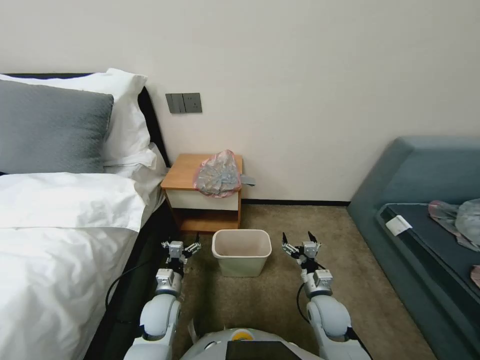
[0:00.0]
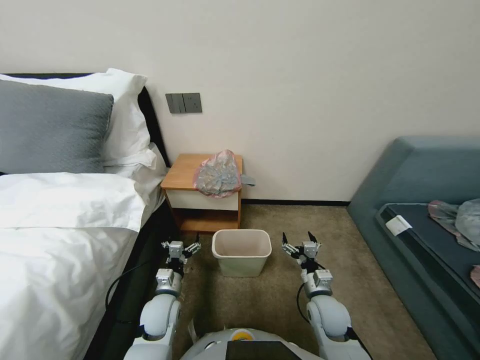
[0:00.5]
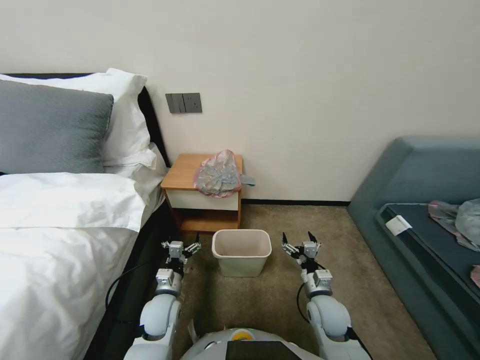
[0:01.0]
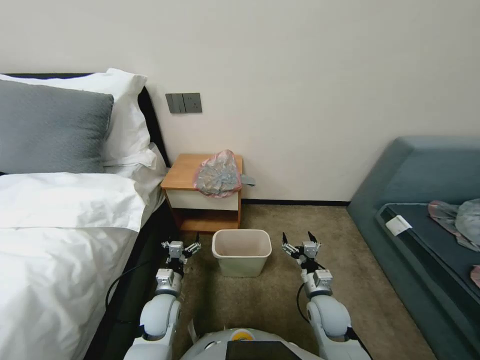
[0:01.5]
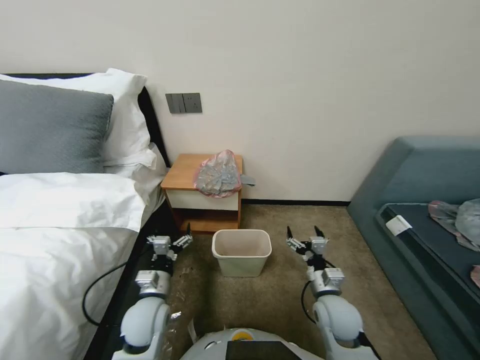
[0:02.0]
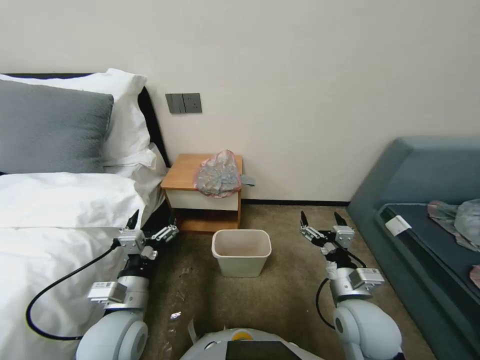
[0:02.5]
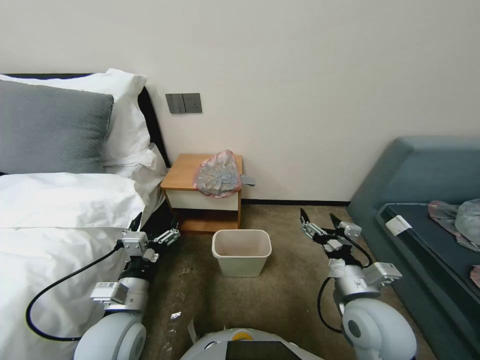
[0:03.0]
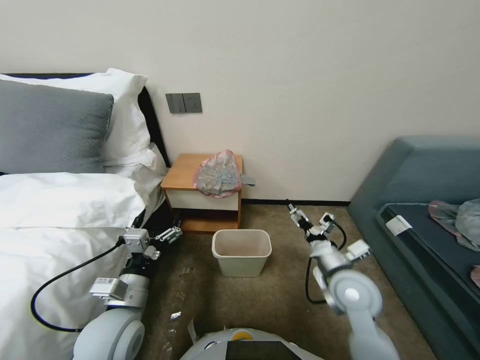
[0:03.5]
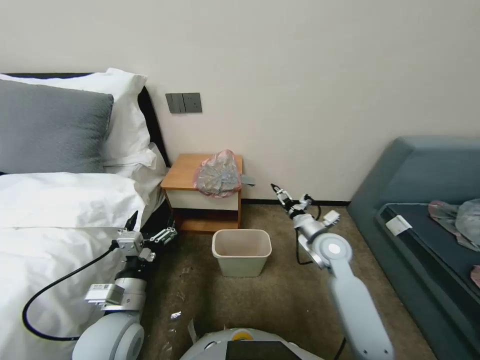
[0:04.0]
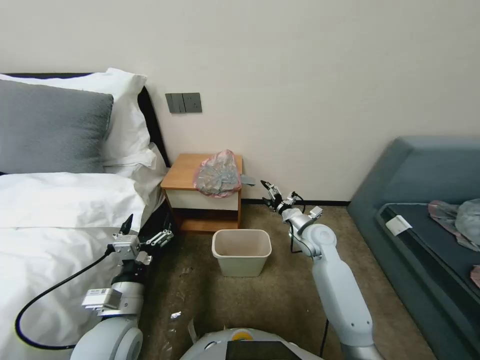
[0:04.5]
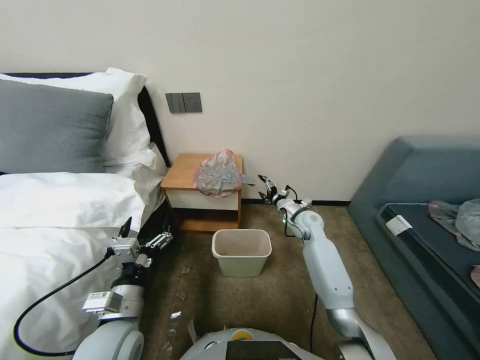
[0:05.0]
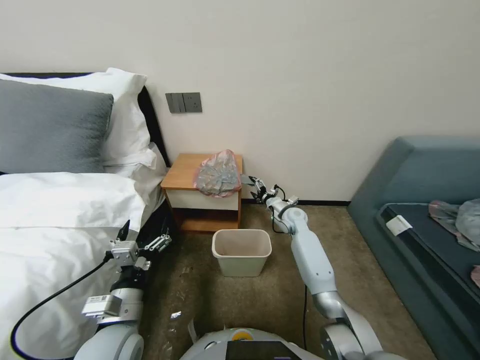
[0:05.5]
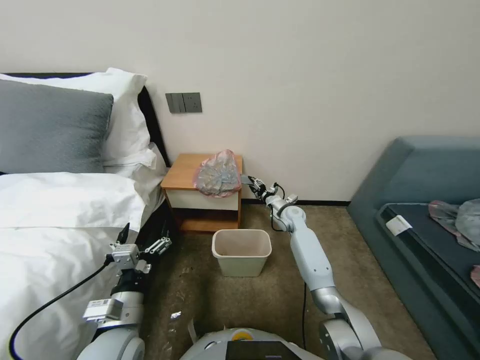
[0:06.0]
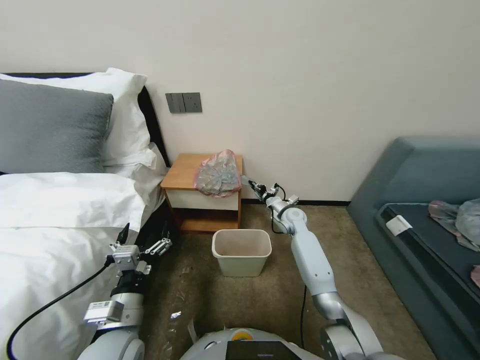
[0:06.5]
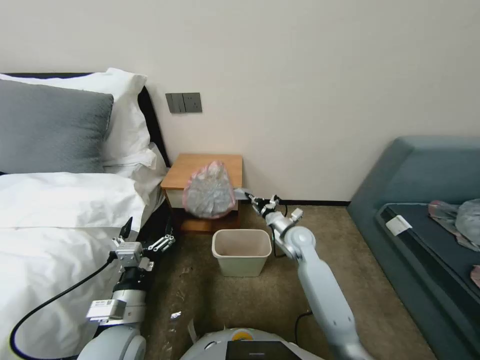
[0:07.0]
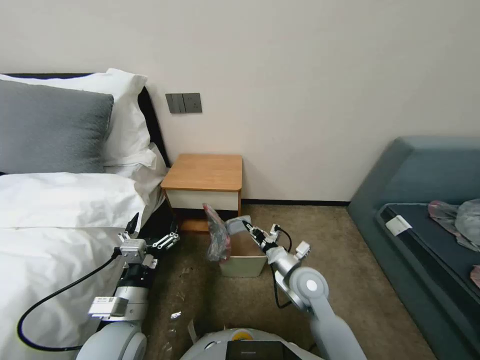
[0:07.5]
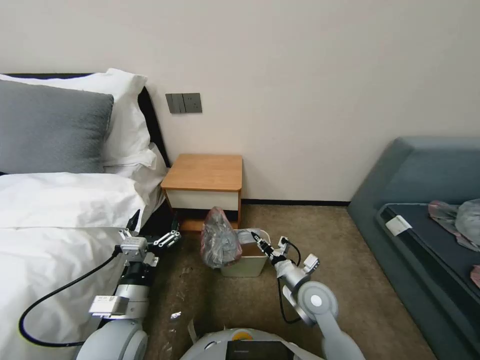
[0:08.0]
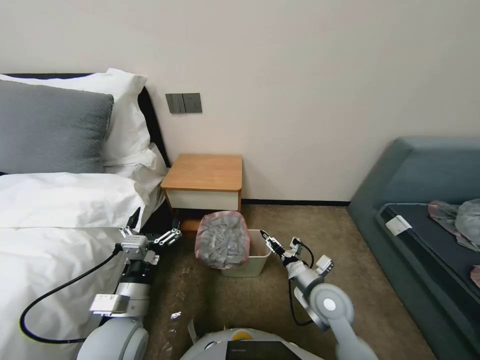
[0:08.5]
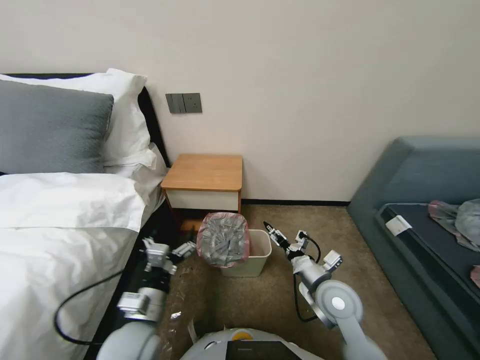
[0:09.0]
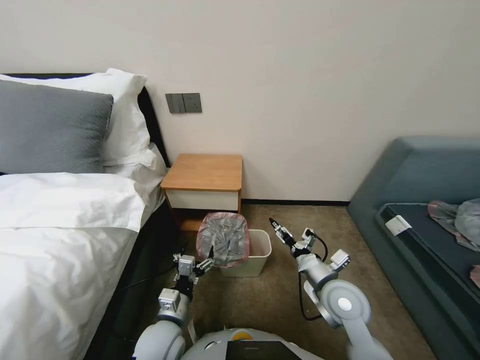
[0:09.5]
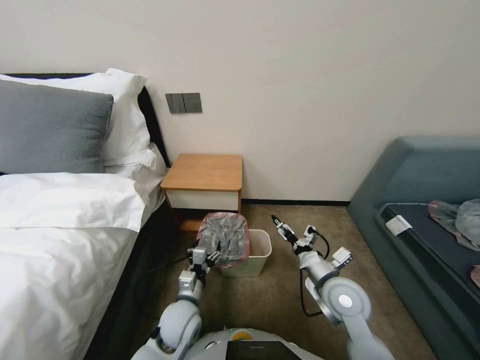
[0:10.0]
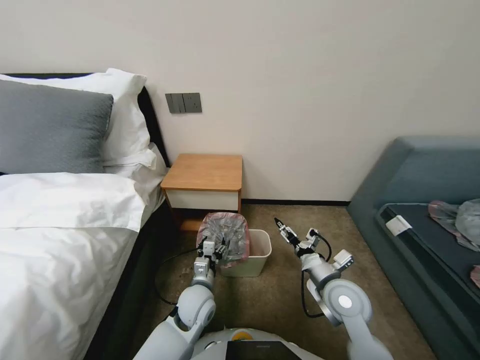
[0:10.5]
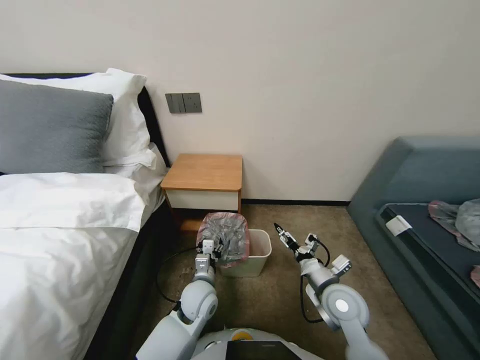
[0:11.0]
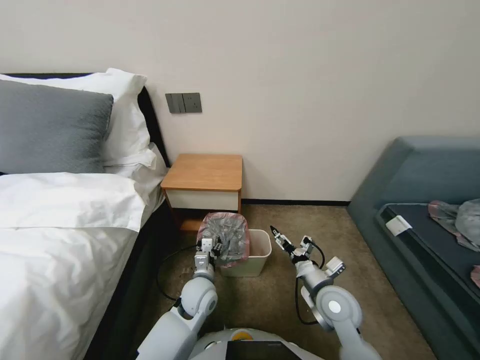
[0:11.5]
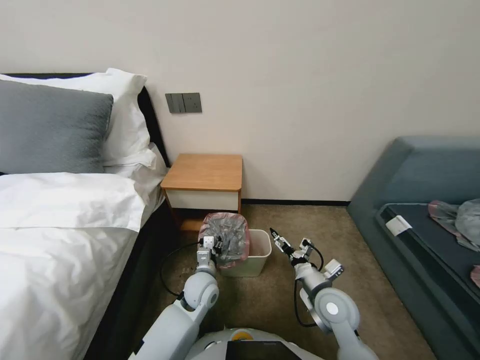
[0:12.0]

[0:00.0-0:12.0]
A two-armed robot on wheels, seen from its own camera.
Task of the whole recording: Pick up the garbage bag from the table and place it over the trash can.
0:02.0 to 0:04.0: The left gripper heads upward and backward, covering some 10 cm. The right gripper moves forward and upward, some 15 cm.
0:04.0 to 0:06.0: The right gripper heads forward and downward, covering some 20 cm.
0:06.0 to 0:08.0: The right gripper heads backward, covering about 30 cm, and closes up.
0:08.0 to 0:10.0: The right gripper goes roughly 5 cm upward, and opens up. The left gripper moves downward and to the right, some 15 cm.
0:10.0 to 0:12.0: The left gripper heads forward, covering roughly 10 cm.

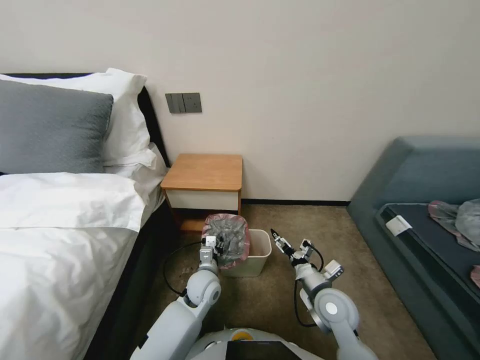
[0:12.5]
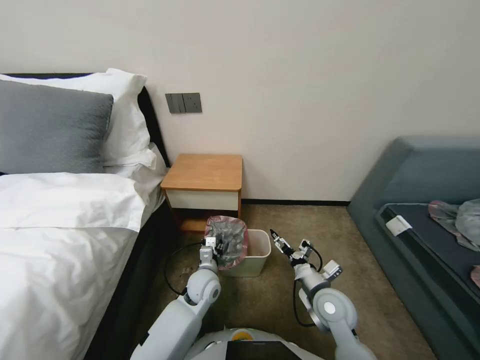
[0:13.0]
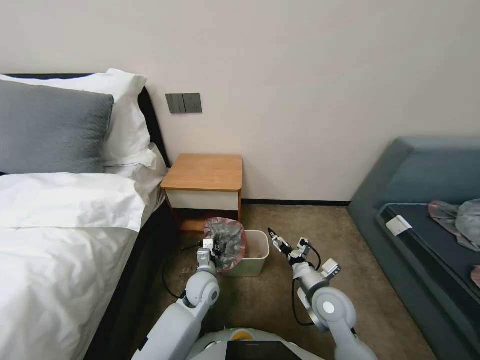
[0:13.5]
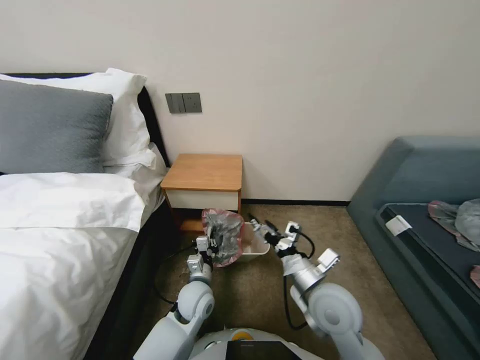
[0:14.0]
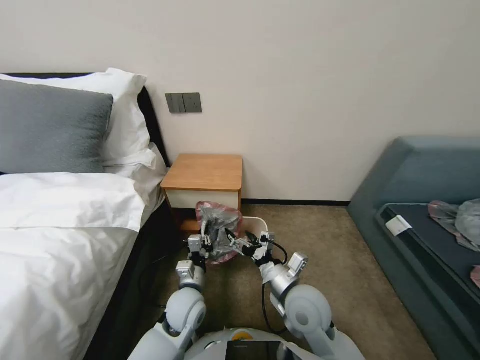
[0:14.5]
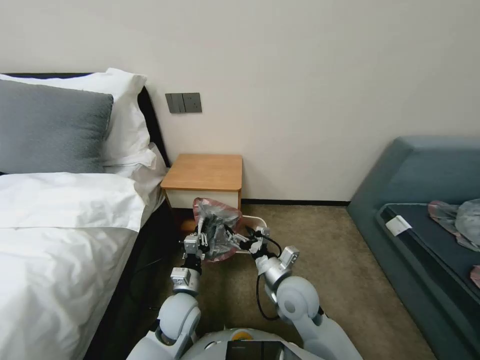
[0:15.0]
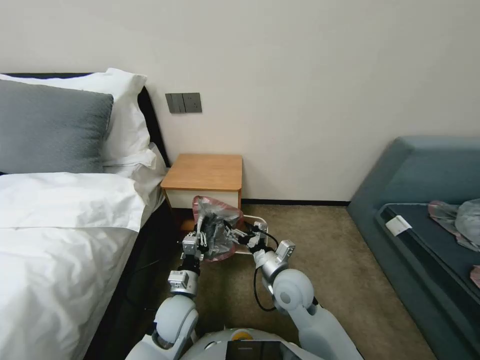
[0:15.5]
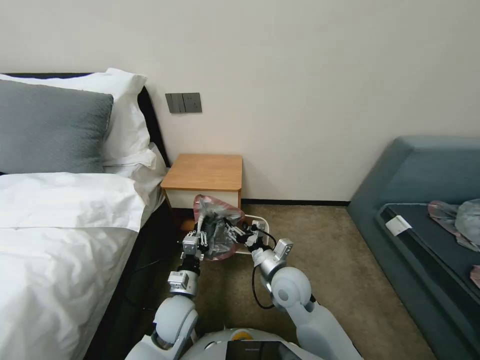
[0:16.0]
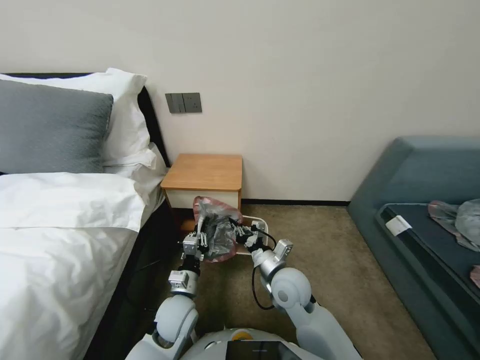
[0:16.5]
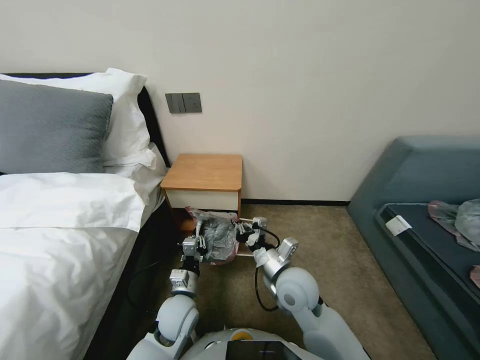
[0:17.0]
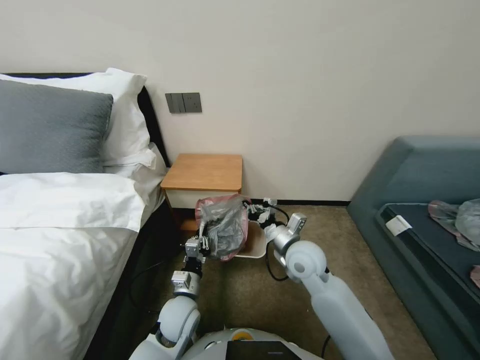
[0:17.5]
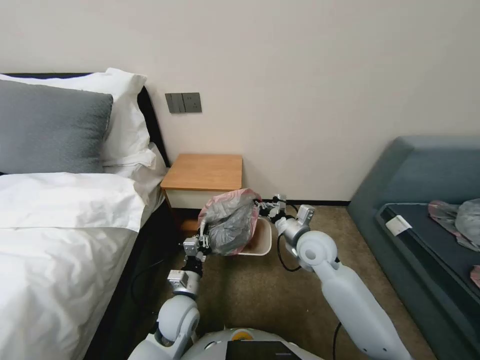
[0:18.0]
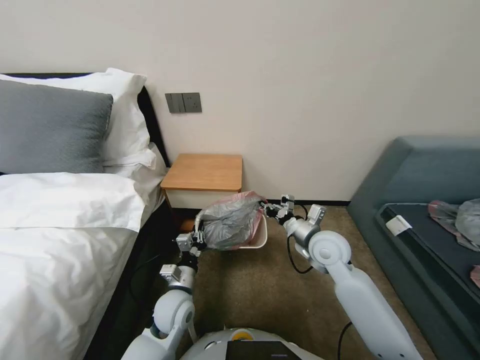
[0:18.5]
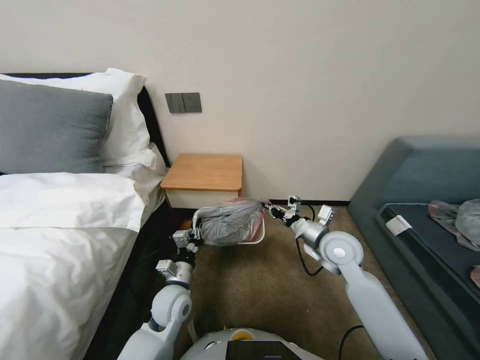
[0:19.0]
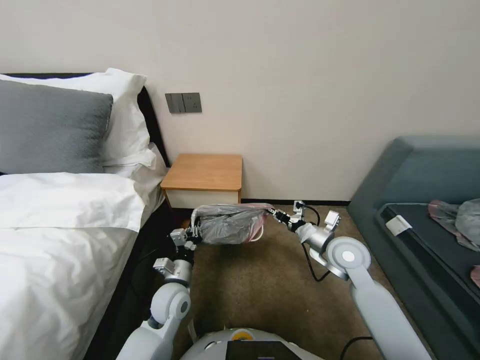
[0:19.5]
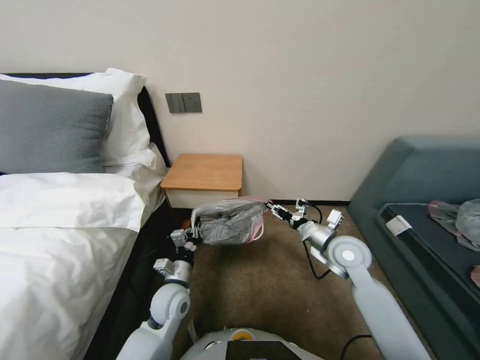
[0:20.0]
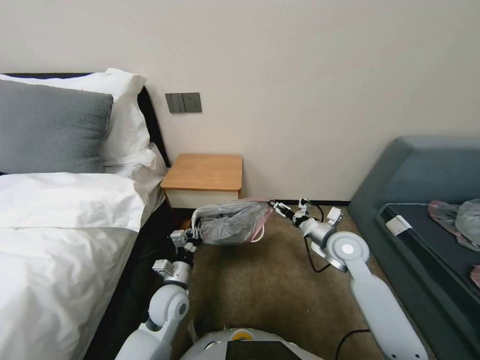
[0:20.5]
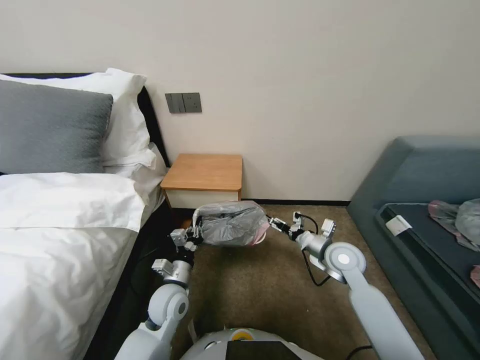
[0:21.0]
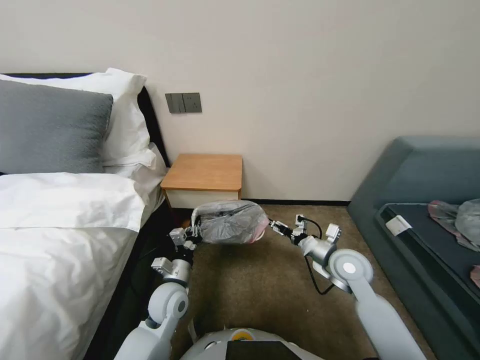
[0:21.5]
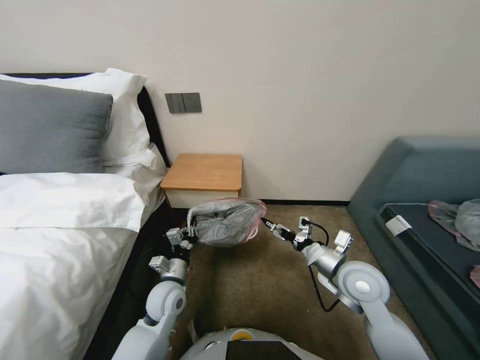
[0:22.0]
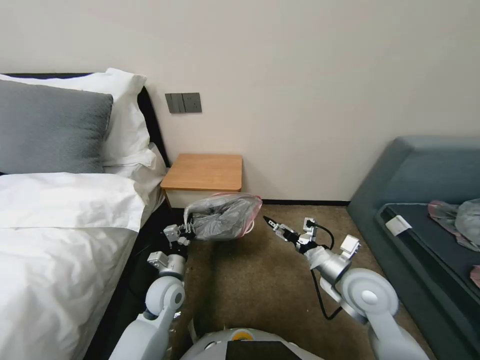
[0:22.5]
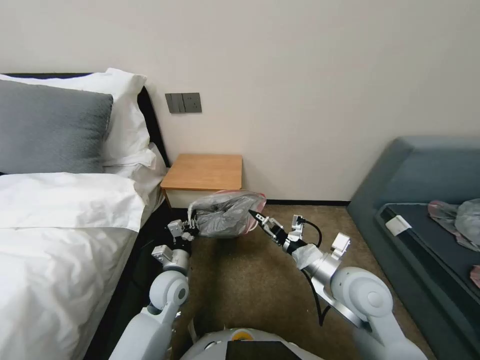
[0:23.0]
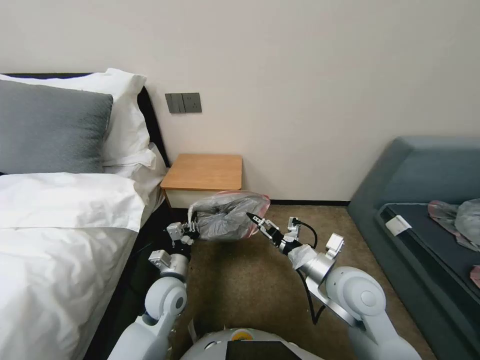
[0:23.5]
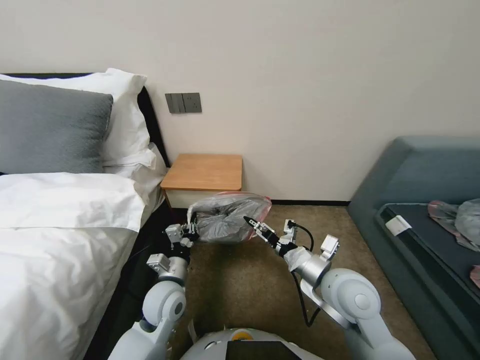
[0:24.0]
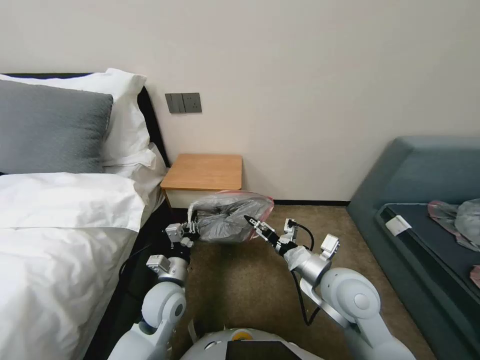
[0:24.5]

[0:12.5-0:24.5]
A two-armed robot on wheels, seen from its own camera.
Task of the whole recording: Pick up the garbage bag from the table and place it over the trash can.
0:12.5 to 0:14.5: The left gripper moves backward, roughly 5 cm, and closes its fingers, while the right gripper shifts some 10 cm to the left and upward.
0:14.5 to 0:16.5: The right gripper shifts roughly 5 cm forward, and closes up.
0:16.5 to 0:18.5: The right gripper moves to the right, forward and upward, some 15 cm.
0:18.5 to 0:20.5: The right gripper goes approximately 5 cm to the right, and opens up.
0:20.5 to 0:22.5: The right gripper travels backward by about 10 cm.
0:22.5 to 0:24.5: The right gripper moves to the left, some 5 cm. Meanwhile the left gripper changes place by some 5 cm.

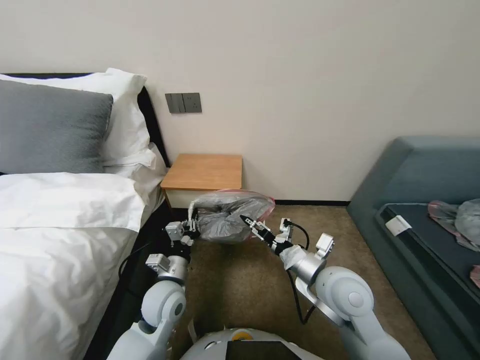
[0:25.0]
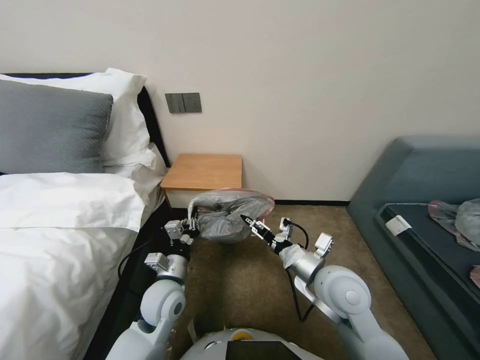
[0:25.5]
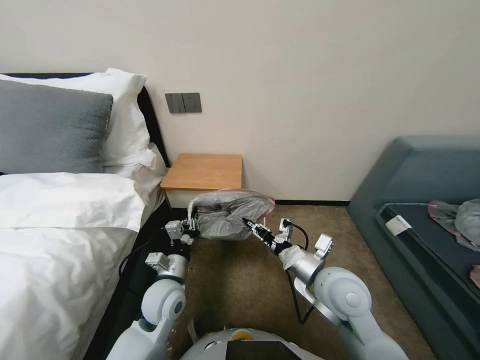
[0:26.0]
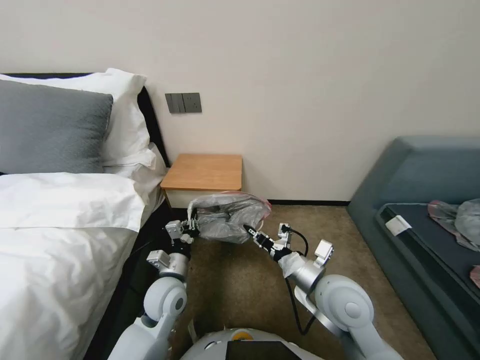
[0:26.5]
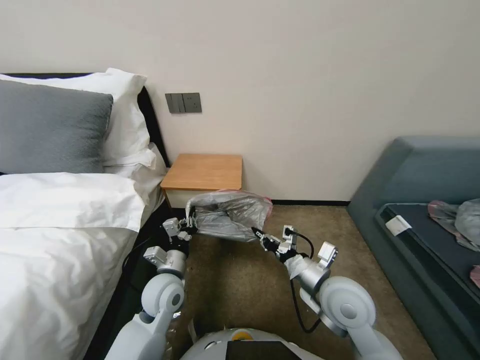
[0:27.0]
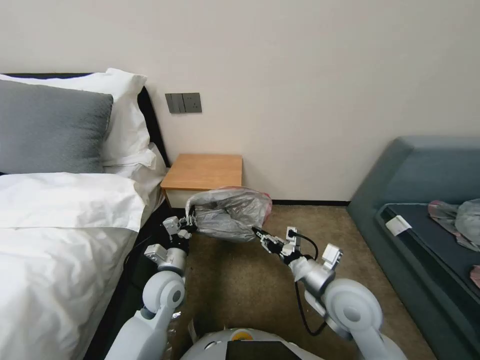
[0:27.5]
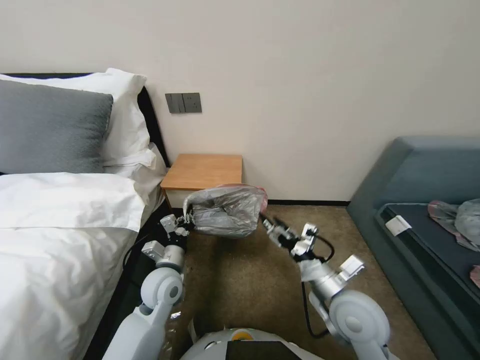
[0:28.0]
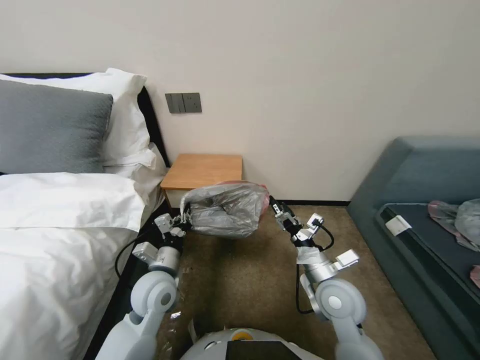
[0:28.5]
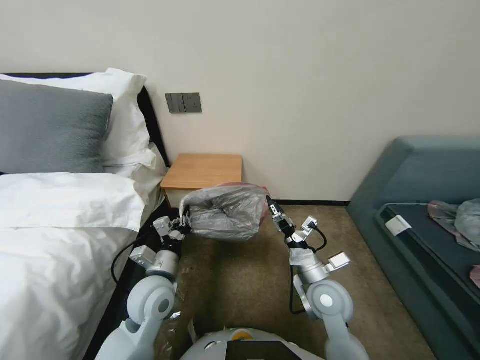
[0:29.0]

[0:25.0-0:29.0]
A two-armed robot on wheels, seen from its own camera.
Task of the whole recording: Pick up the garbage bag from the table and place it over the trash can.
0:25.0 to 0:27.0: The right gripper closes its fingers.
0:27.0 to 0:29.0: The right gripper shifts some 5 cm downward, and opens.
